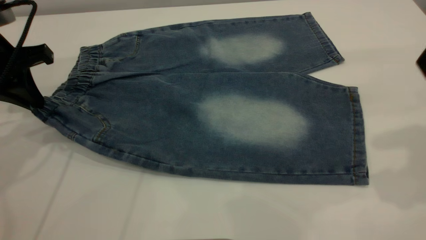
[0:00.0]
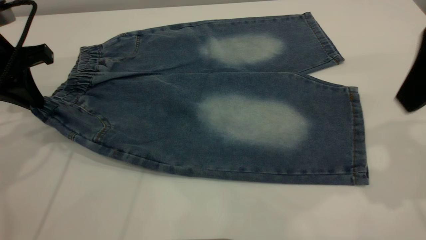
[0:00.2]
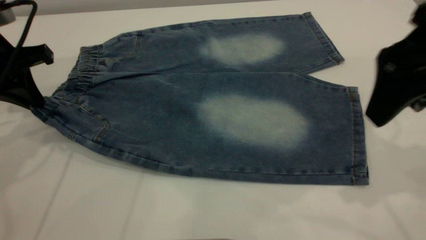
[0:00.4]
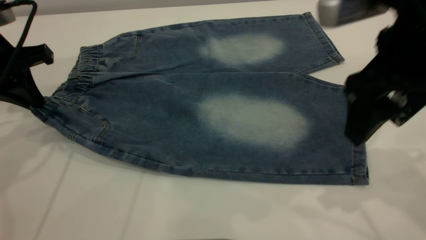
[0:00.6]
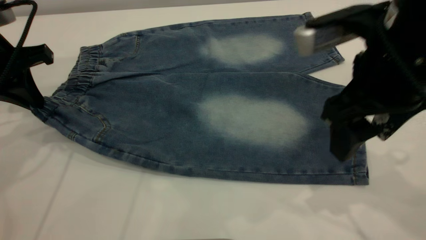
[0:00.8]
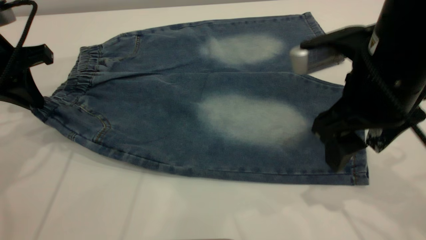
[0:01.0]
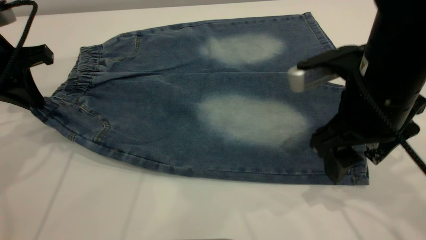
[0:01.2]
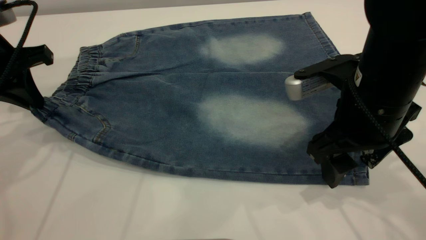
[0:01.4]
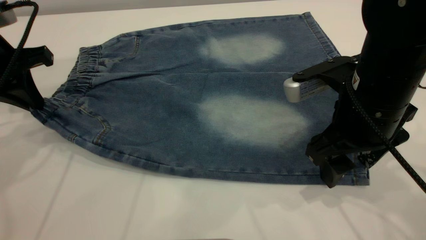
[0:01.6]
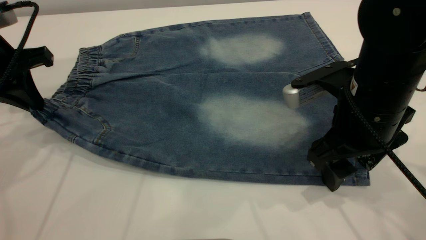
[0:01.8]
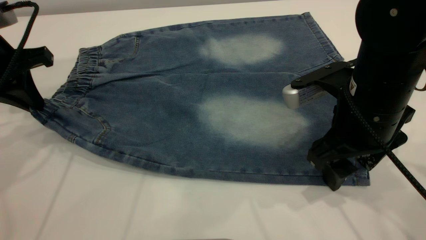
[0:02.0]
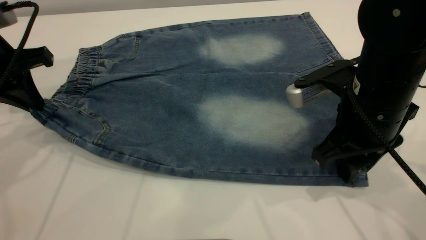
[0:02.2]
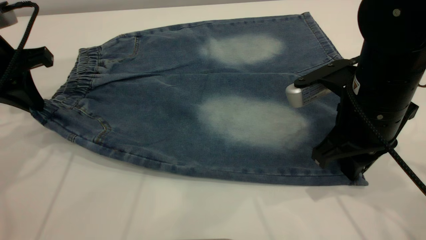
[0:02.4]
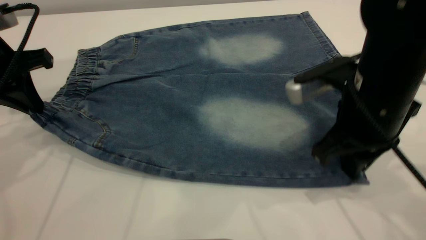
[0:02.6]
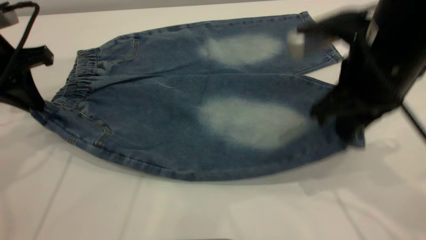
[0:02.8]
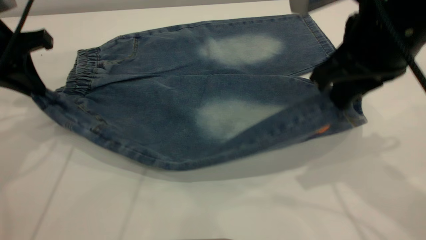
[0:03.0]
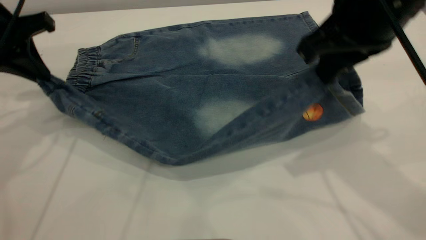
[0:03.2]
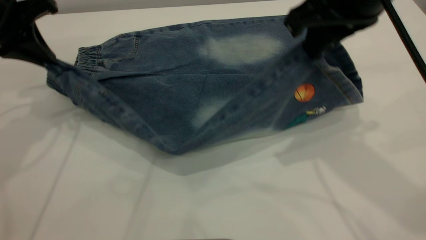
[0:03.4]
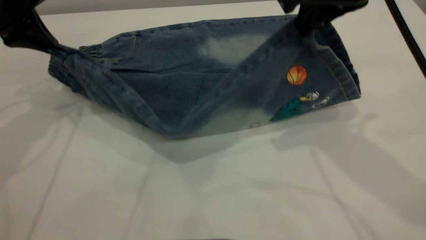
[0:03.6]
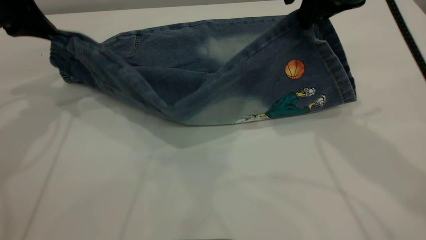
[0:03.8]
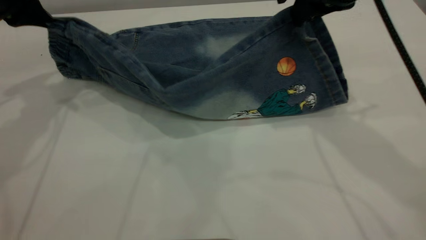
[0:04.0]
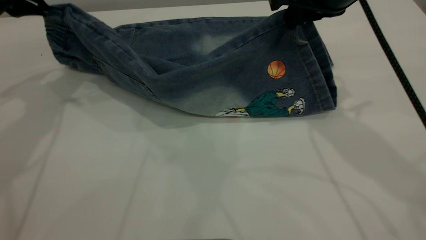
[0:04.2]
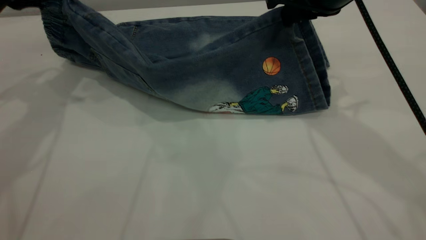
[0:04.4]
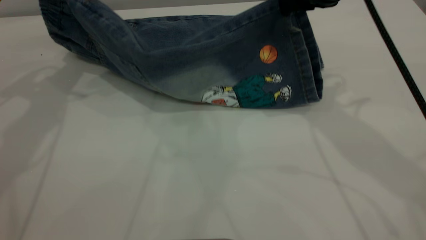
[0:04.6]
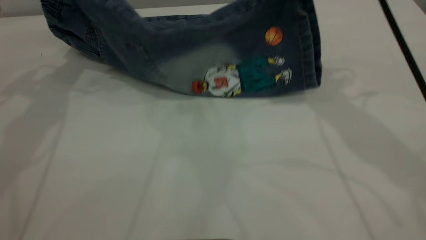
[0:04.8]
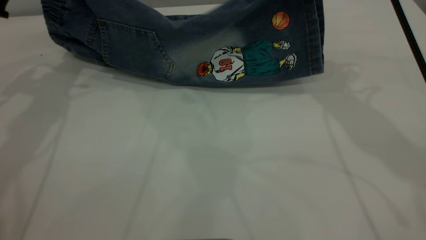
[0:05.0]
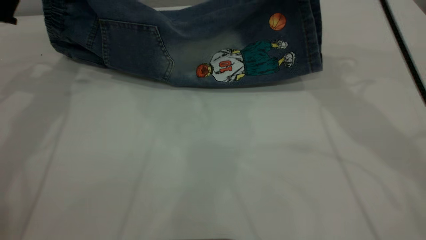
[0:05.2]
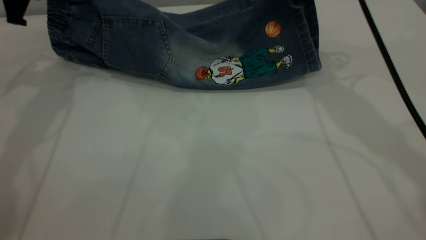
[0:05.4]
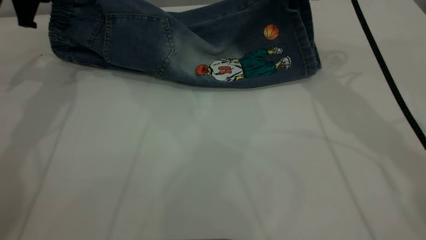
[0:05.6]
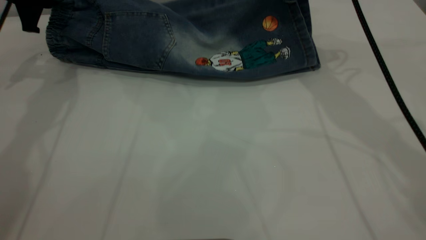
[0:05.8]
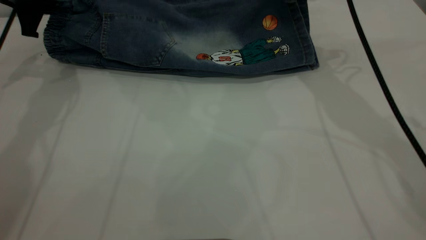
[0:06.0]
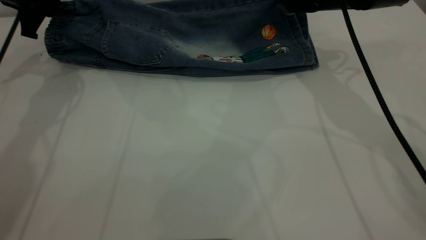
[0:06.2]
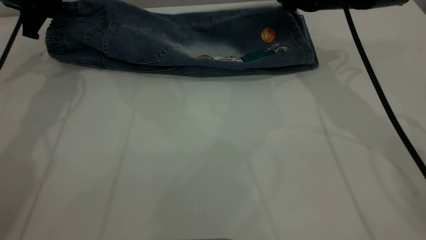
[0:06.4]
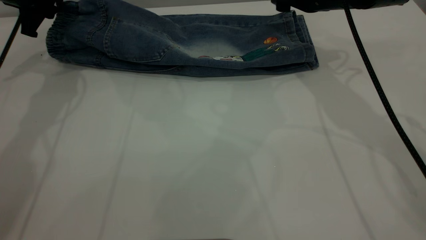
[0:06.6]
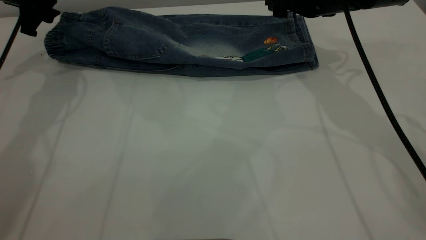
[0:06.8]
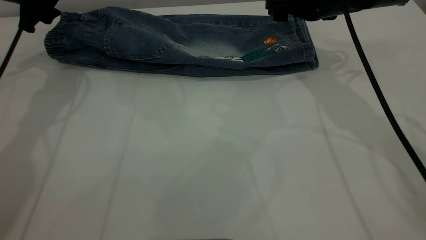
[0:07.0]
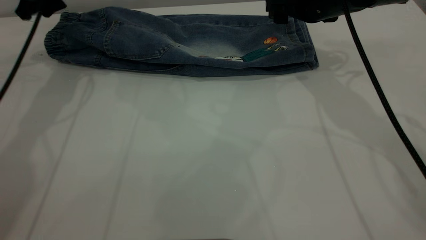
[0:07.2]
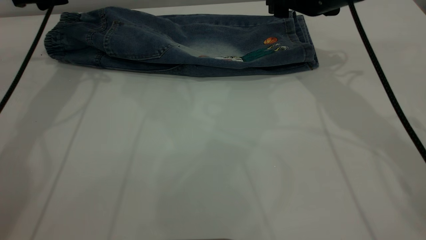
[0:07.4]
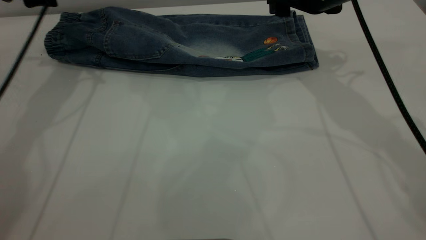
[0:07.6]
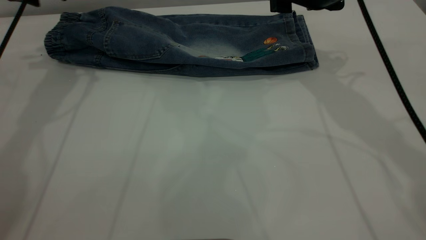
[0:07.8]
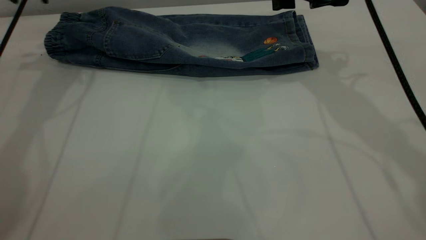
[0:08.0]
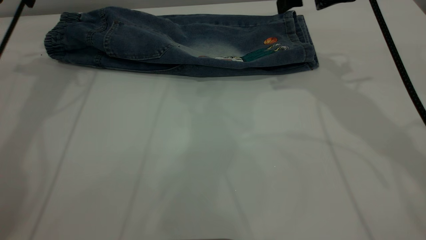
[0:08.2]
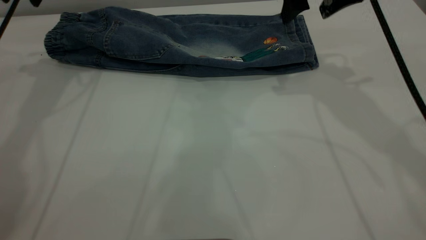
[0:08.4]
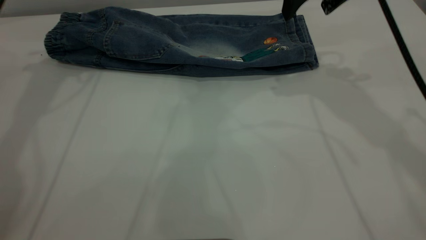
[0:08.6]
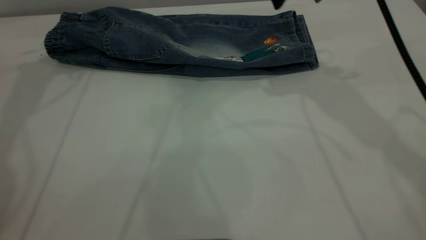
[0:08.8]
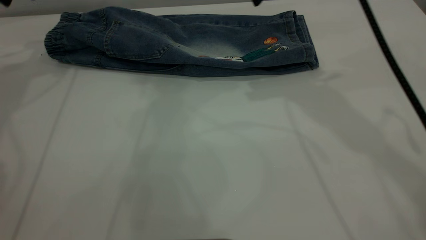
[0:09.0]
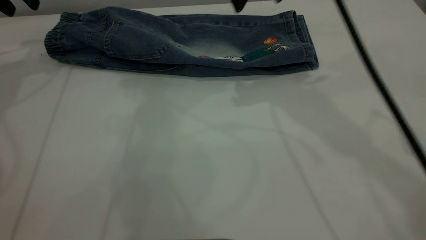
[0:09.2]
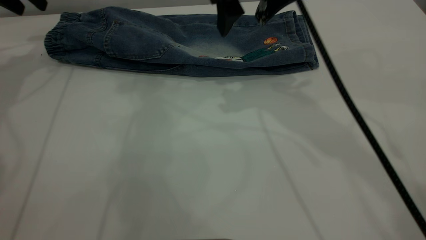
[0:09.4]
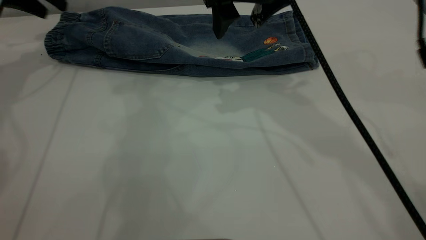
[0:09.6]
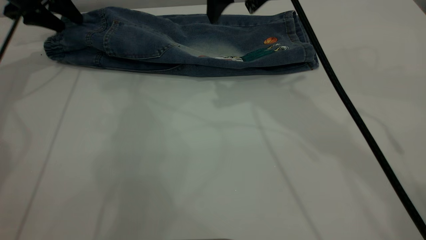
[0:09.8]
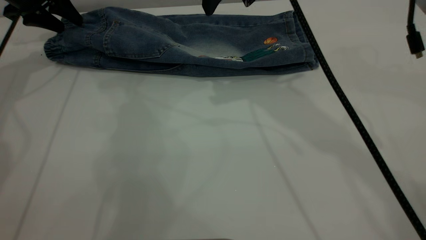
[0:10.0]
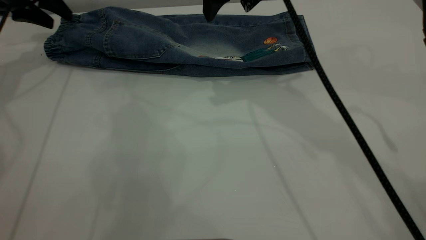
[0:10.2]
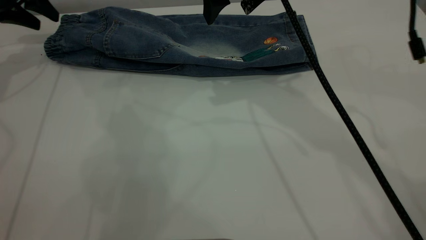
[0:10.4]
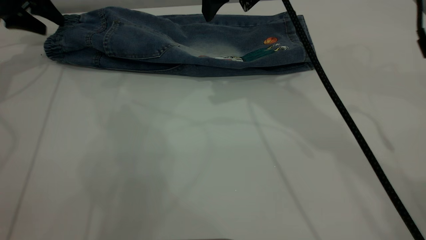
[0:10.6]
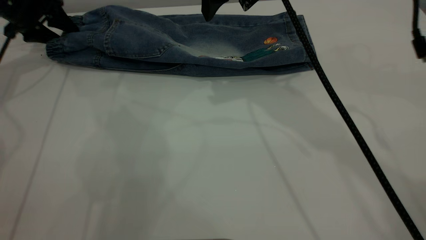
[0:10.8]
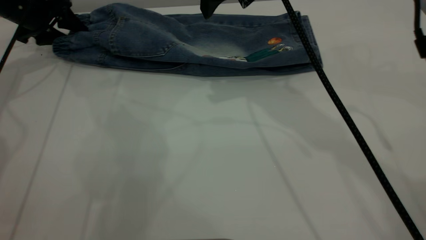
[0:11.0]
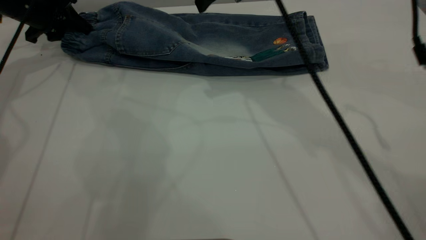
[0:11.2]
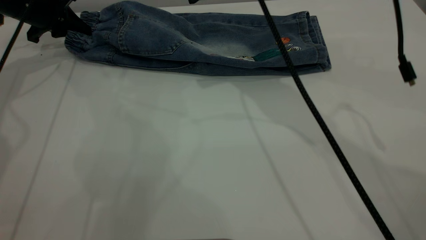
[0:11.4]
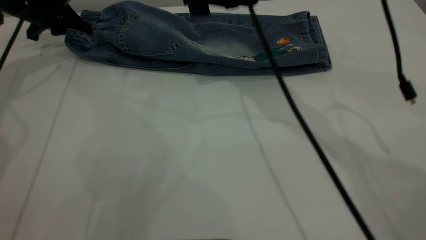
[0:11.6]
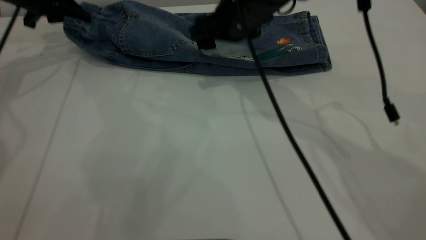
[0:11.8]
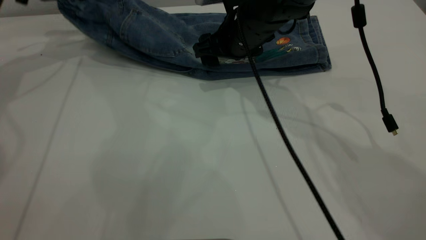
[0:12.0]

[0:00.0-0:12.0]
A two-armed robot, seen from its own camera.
Step, 0:00.0 to 0:07.0: Fold the bottom of the pants upward.
0:00.0 to 0:01.6: The right gripper moves downward and to the left, about 20 cm.
0:01.6 to 0:03.0: The right gripper moves upward, roughly 10 cm, and closes.
0:03.0 to 0:04.4: The left gripper goes approximately 5 cm forward. Meanwhile the right gripper travels forward by roughly 10 cm.
0:04.4 to 0:06.0: The two grippers go about 10 cm forward and downward.
0:06.0 to 0:07.6: The left gripper opens its fingers. Meanwhile the right gripper opens up.
0:07.6 to 0:09.0: The left gripper shifts some 10 cm to the left and upward. Meanwhile the right gripper heads upward and to the left, covering about 10 cm.
0:09.0 to 0:10.4: The left gripper travels downward by approximately 10 cm. Meanwhile the right gripper heads to the left, covering some 5 cm.
0:10.4 to 0:12.0: The left gripper travels downward and back again, some 5 cm each way, and closes up. The right gripper goes about 15 cm downward.

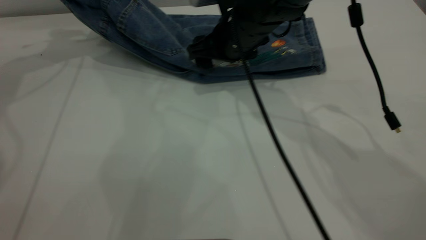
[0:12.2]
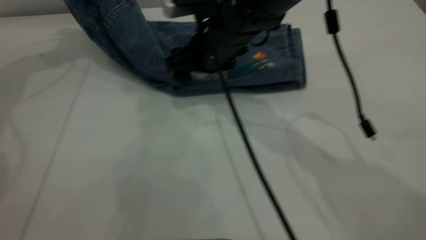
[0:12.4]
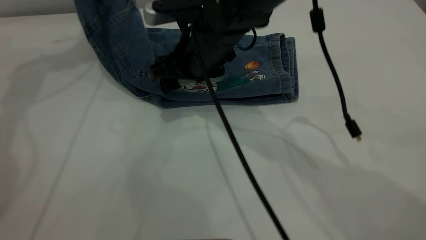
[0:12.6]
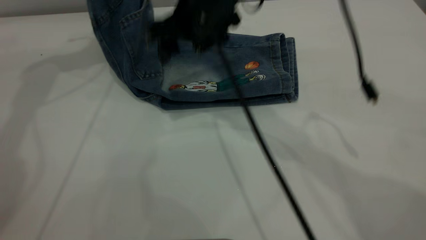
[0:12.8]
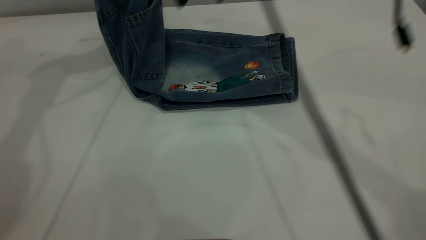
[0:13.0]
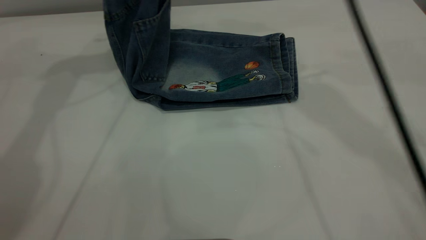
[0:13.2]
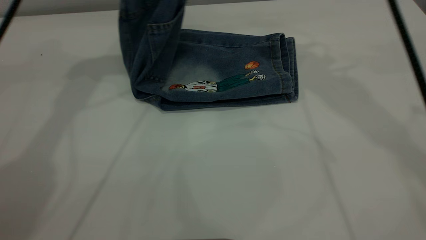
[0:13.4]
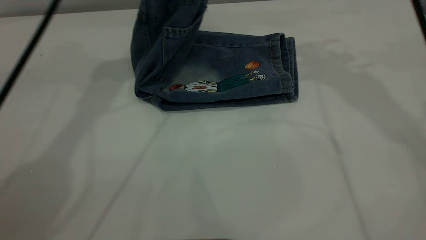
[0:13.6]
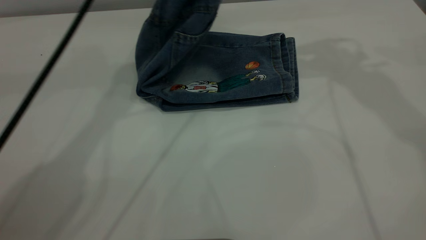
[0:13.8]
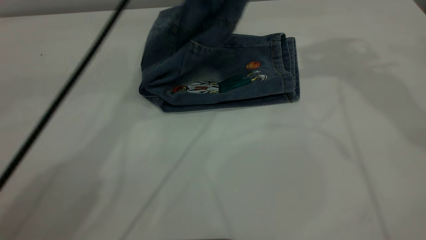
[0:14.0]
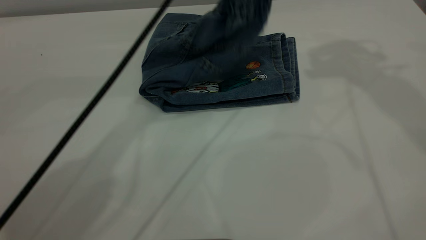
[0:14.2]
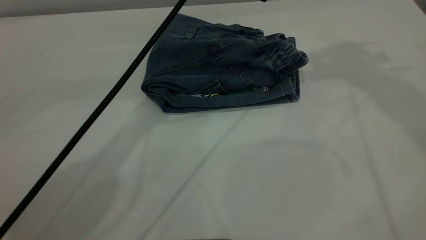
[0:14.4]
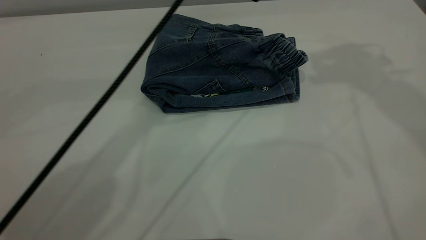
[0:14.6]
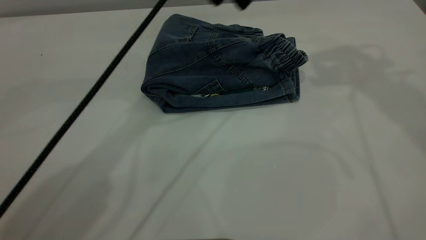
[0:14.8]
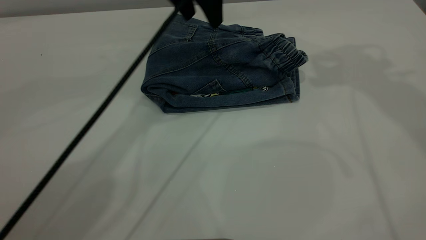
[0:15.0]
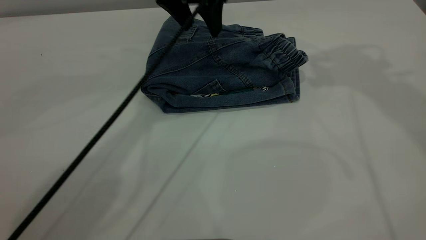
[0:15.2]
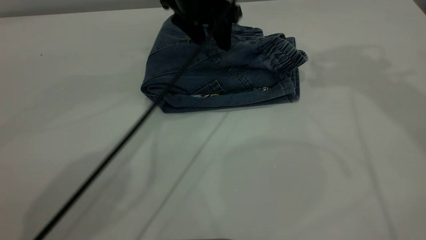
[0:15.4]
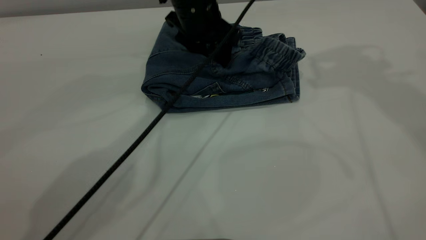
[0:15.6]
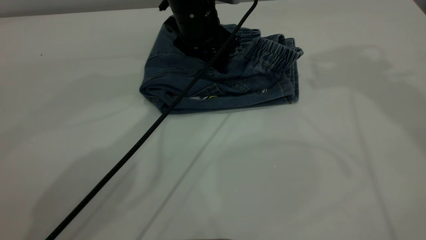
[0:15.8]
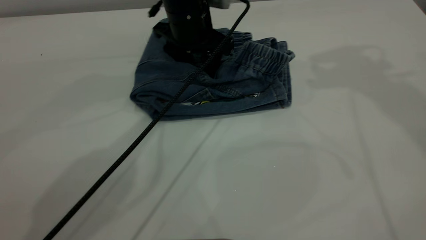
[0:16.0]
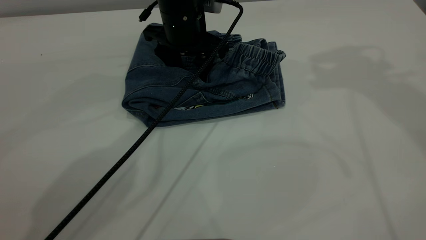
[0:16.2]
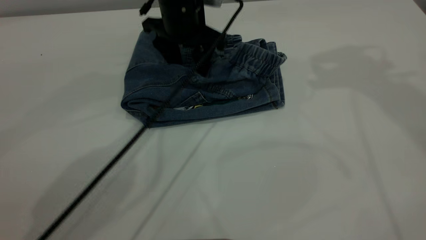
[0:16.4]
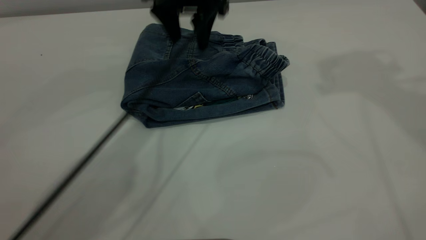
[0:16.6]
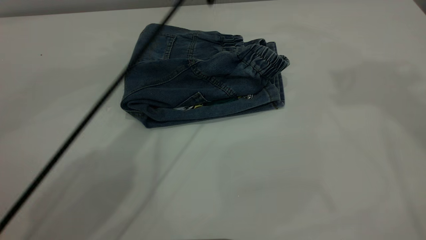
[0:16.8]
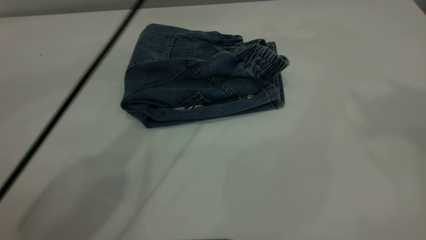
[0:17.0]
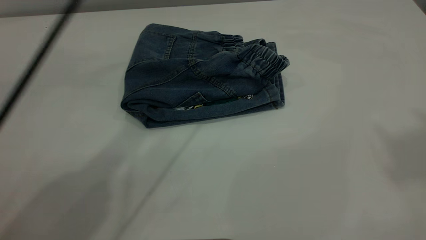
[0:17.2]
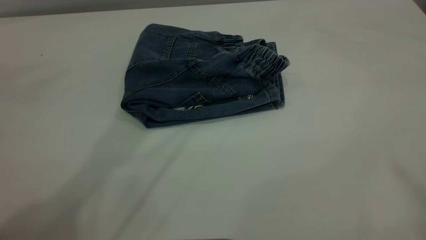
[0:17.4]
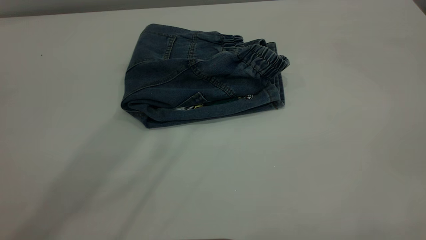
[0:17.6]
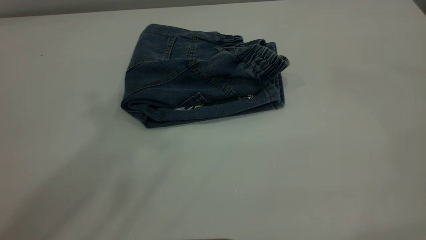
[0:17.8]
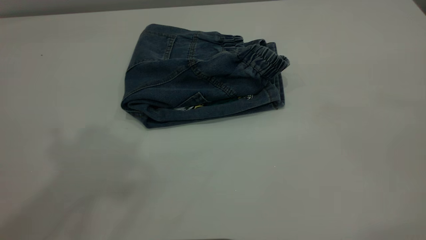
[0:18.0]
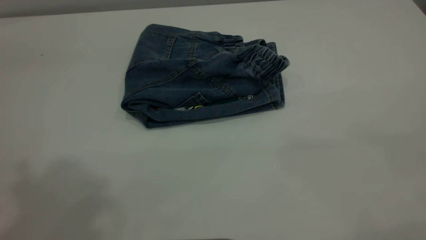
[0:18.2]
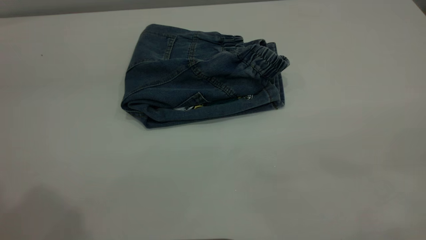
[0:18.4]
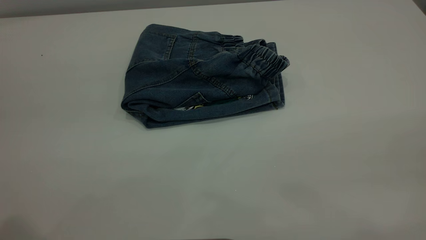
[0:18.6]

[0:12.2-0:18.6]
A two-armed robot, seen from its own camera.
Step, 0:12.2 to 0:14.8: Fold the pants from left to right.
0:12.2 to 0:13.8: The left gripper is displaced to the right by approximately 25 cm, while the right gripper goes some 30 cm upward and to the right.
0:13.8 to 0:15.4: The right gripper goes about 5 cm upward, while the left gripper goes roughly 10 cm downward, and opens its fingers.
0:15.4 to 0:17.0: The right gripper travels upward and backward by some 20 cm. The left gripper travels upward by some 15 cm.
0:17.0 to 0:18.6: The left gripper moves backward and to the left, approximately 40 cm.
